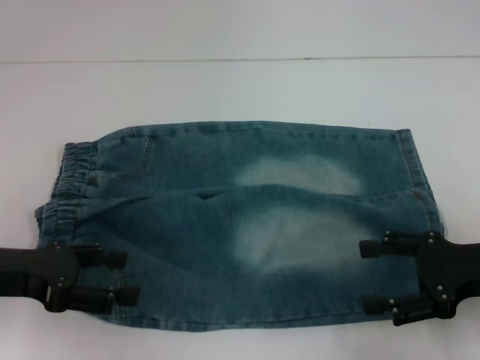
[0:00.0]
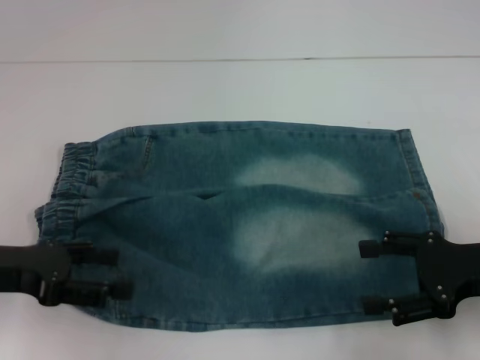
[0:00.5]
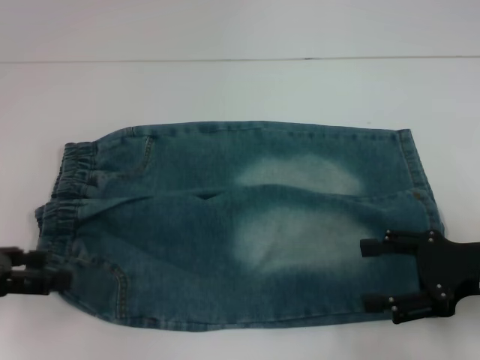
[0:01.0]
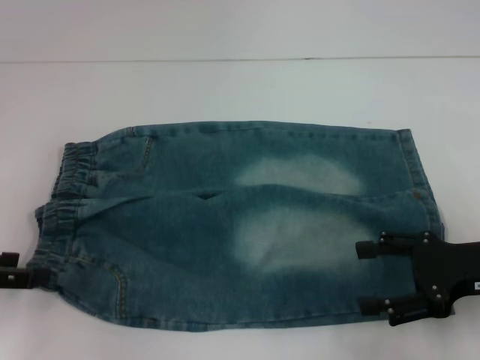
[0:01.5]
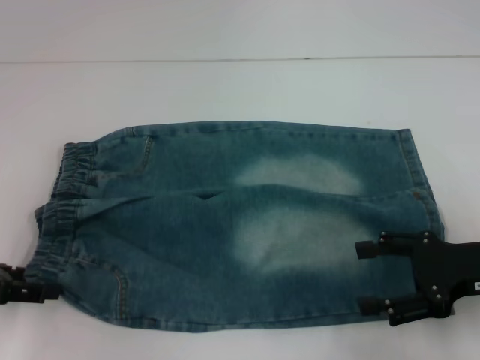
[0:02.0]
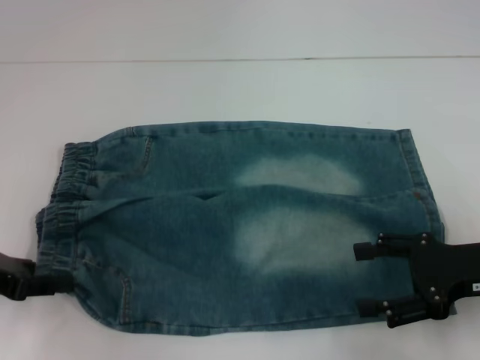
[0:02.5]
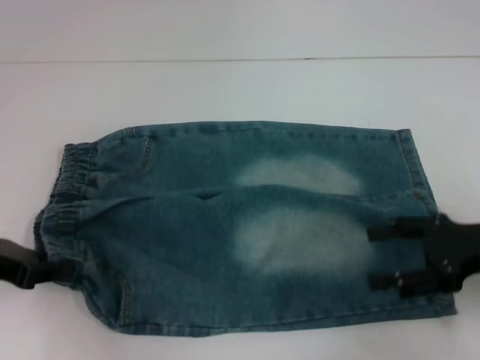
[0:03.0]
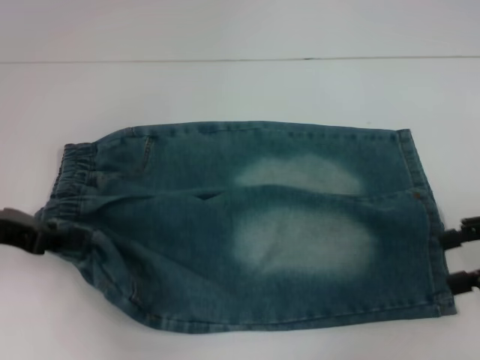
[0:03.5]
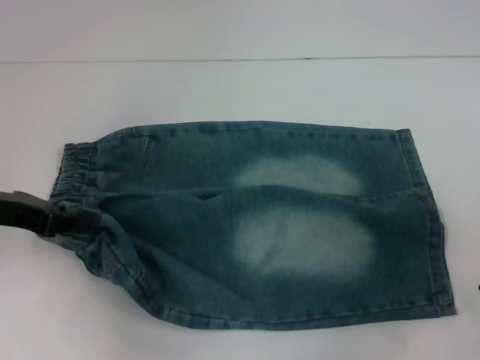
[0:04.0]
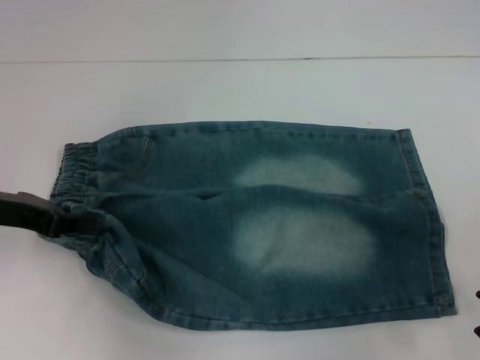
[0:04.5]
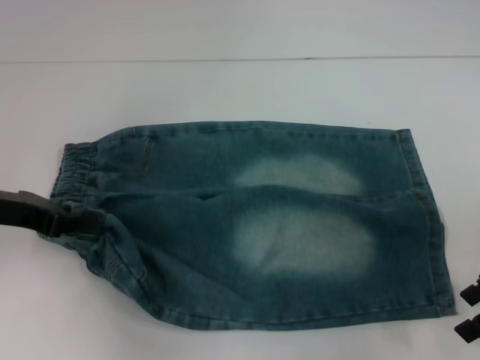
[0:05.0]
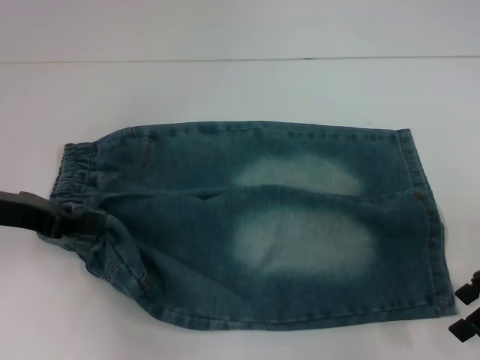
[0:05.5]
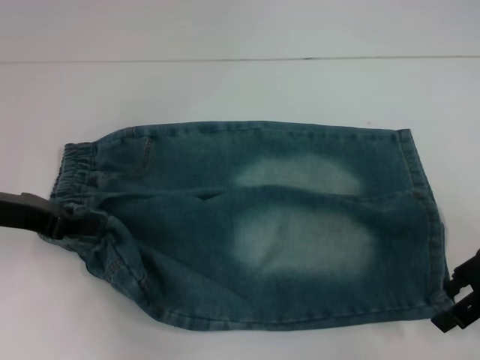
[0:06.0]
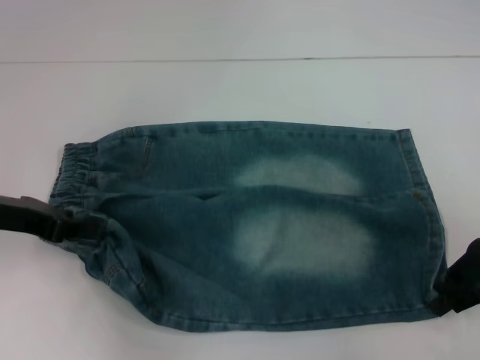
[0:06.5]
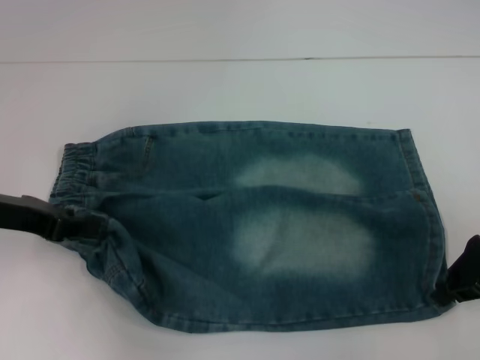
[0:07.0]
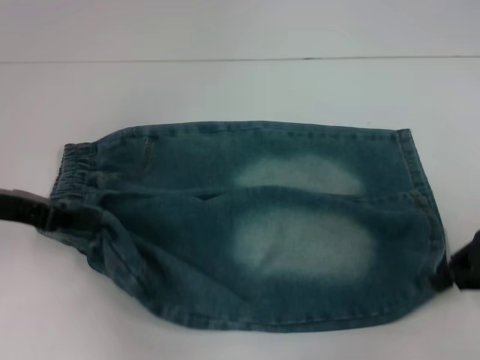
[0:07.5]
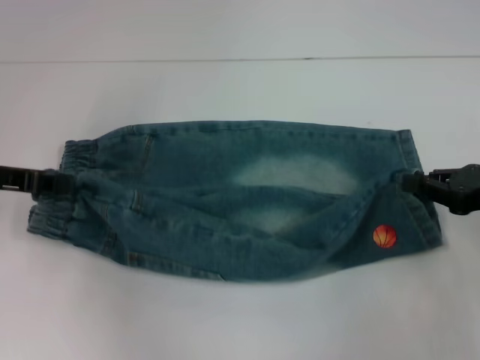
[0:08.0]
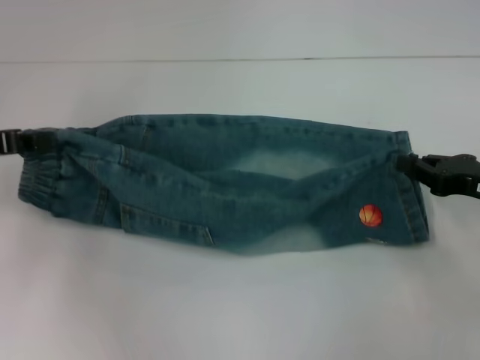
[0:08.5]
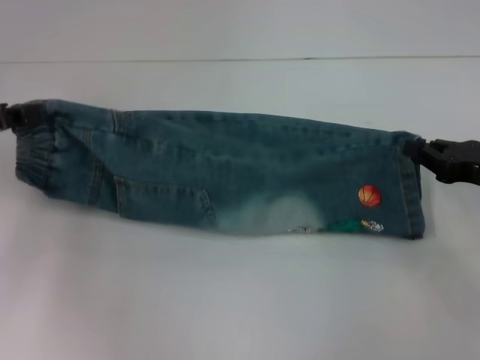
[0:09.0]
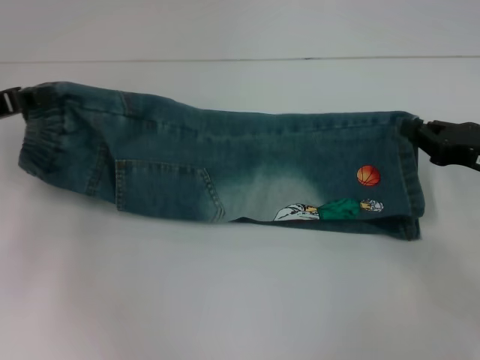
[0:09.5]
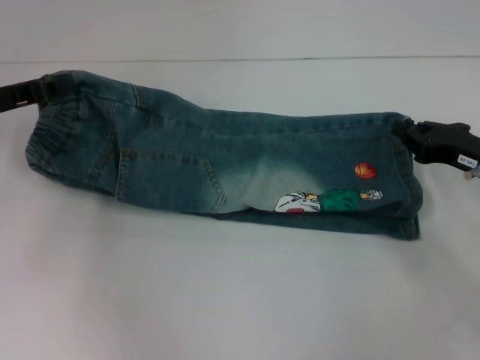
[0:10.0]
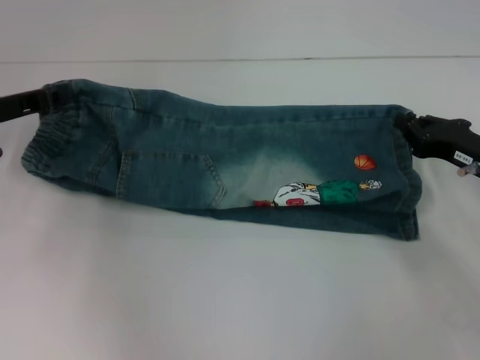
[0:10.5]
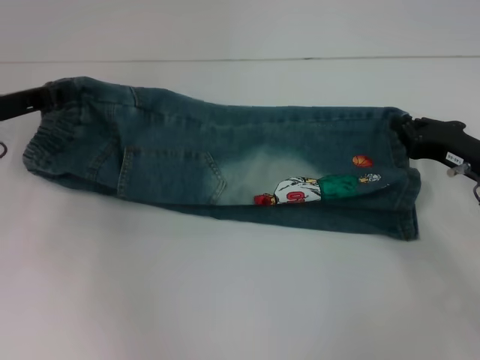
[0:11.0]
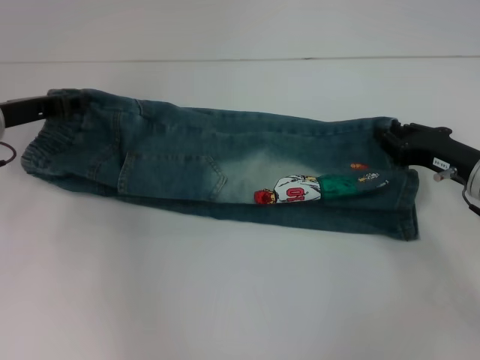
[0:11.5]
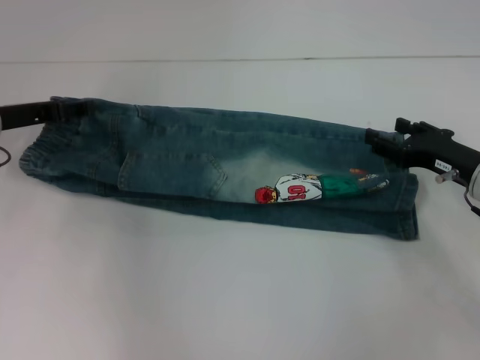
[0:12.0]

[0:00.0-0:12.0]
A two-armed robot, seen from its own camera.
Step, 0:00.0 to 0:02.5: Hold the lower left waistband with your left hand.
Step, 0:03.0 to 0:07.0: Grab the lower right pant leg with your right hand.
Step, 0:07.5 to 0:11.5: Fold upward with your right hand.
0:00.0 to 0:02.0: The left gripper travels to the left by approximately 5 cm.
0:02.0 to 0:04.0: The right gripper goes approximately 10 cm to the right and upward, while the left gripper is displaced forward by some 5 cm, and closes its fingers.
0:04.0 to 0:06.0: The right gripper moves to the left, some 5 cm.
0:06.0 to 0:08.0: The right gripper closes its fingers.
0:08.0 to 0:10.0: The right gripper shifts by approximately 5 cm.
0:10.0 to 0:12.0: The left gripper opens its fingers. The right gripper opens up.

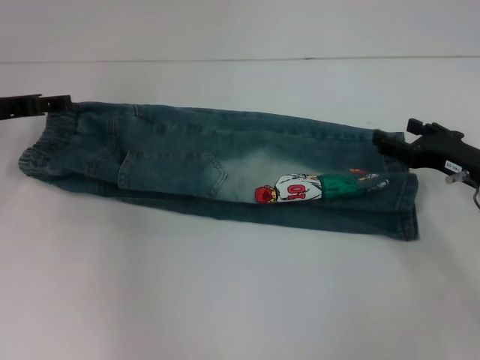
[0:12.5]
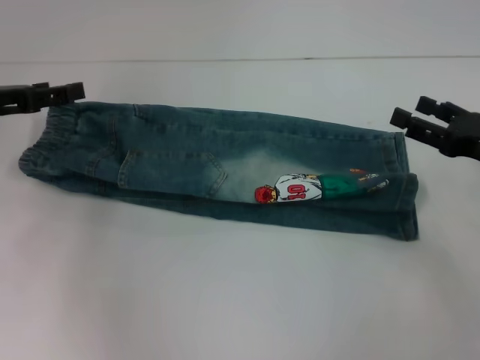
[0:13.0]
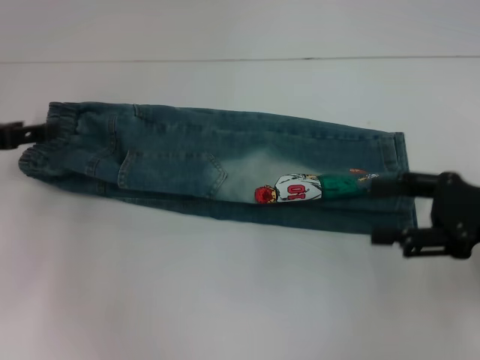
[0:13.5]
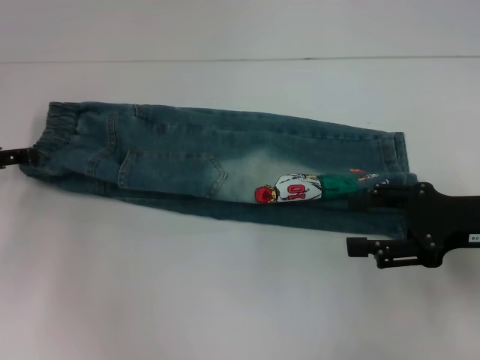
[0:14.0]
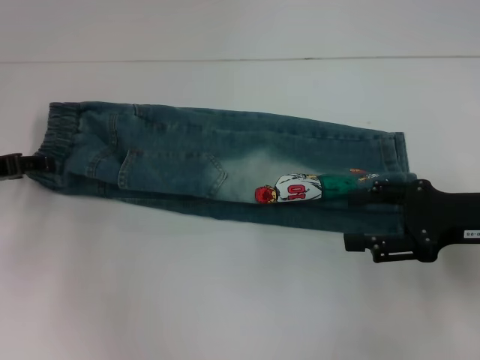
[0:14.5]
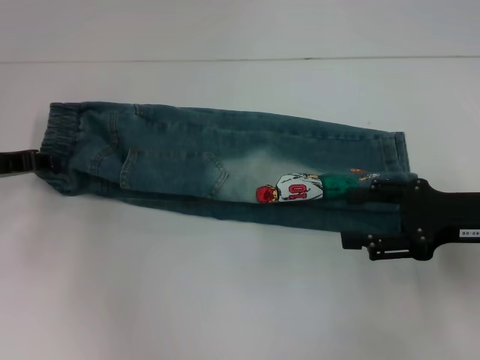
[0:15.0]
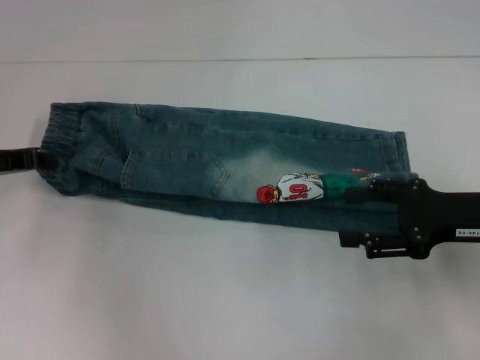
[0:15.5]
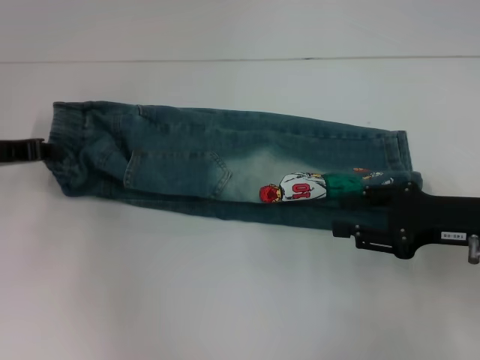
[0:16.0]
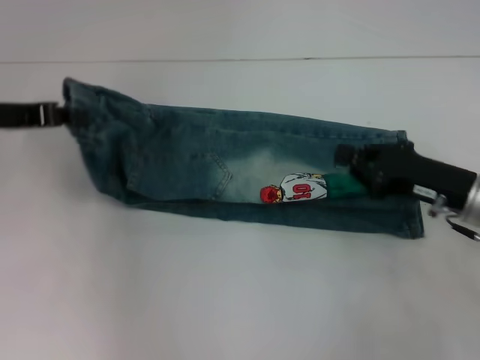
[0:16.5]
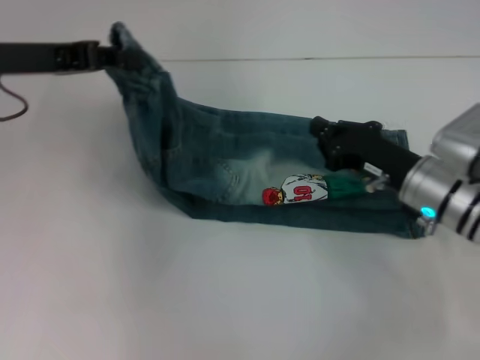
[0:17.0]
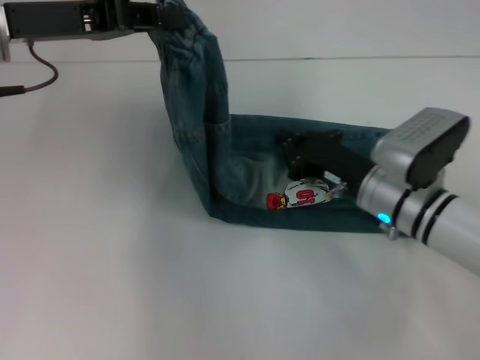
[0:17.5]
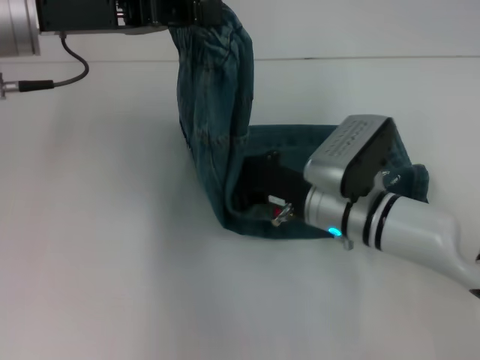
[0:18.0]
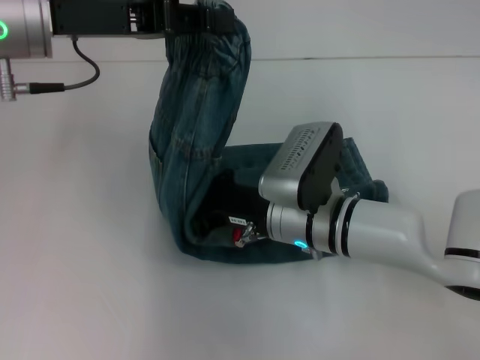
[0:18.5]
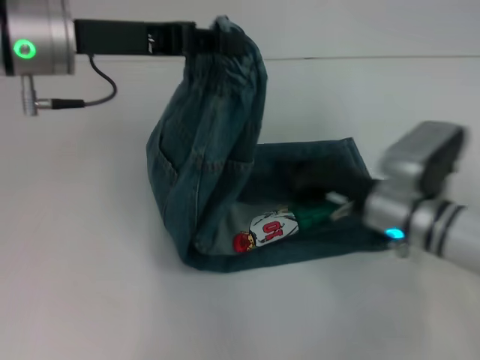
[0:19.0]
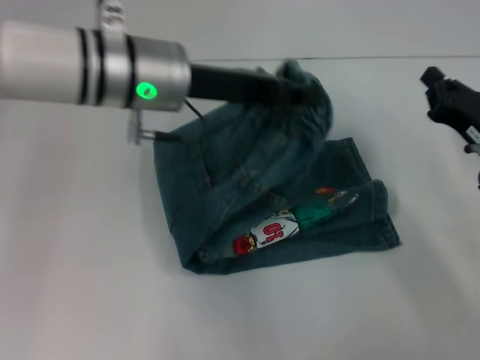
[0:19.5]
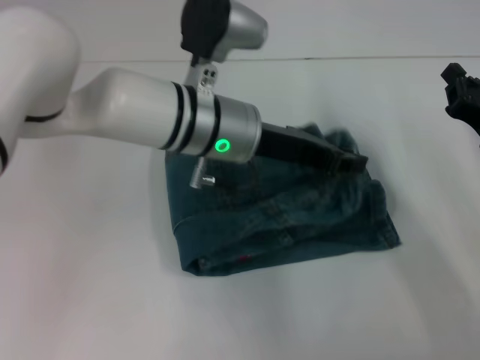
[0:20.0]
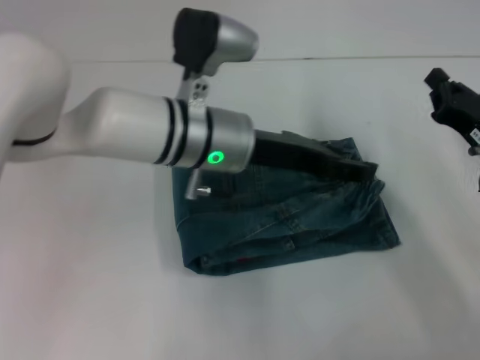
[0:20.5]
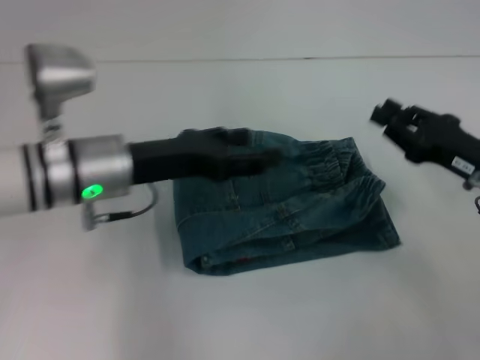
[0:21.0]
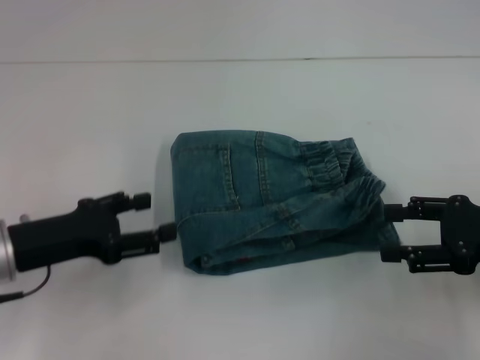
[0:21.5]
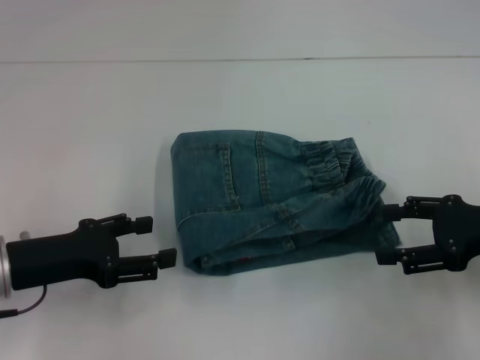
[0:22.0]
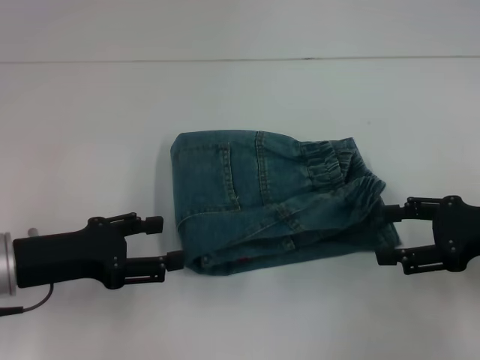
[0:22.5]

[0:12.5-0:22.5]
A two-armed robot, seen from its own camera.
Step, 0:12.5 to 0:15.5: Hold the waistband with your left hand.
Step, 0:16.0 to 0:18.5: Press the middle of the pants with your right hand.
Step, 0:19.0 to 0:20.0: Fold to the right with your left hand.
0:12.5 to 0:14.5: The left gripper changes place by roughly 5 cm; the right gripper is displaced upward by about 5 cm.
0:14.5 to 0:16.5: The right gripper changes place by some 5 cm, and closes up, while the left gripper heads upward, covering about 5 cm, and closes its fingers.
0:16.5 to 0:18.5: The left gripper heads to the right and upward, covering some 15 cm, while the right gripper is displaced to the left by roughly 20 cm.
0:18.5 to 0:20.5: The right gripper moves to the right, roughly 20 cm. Meanwhile the left gripper is displaced to the right and downward by approximately 20 cm, and opens.
0:20.5 to 0:22.5: The left gripper travels to the left and backward by some 25 cm. Meanwhile the right gripper travels upward by some 5 cm, and opens up.
